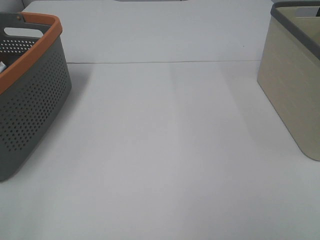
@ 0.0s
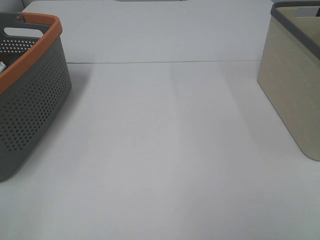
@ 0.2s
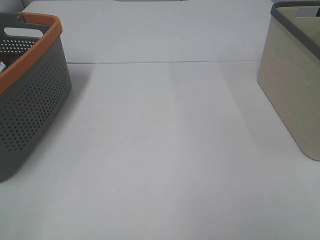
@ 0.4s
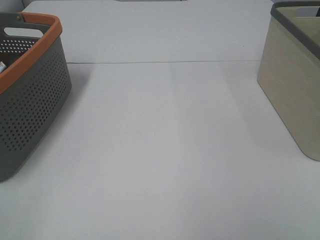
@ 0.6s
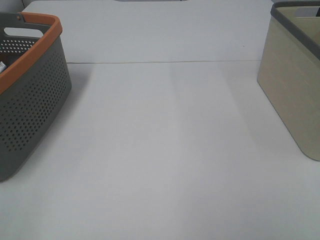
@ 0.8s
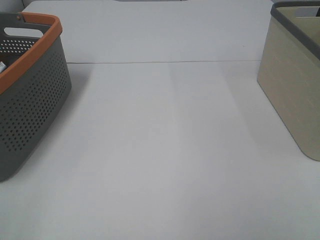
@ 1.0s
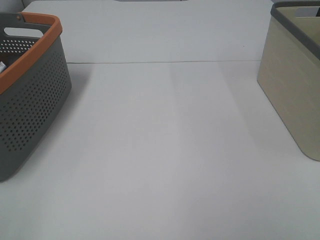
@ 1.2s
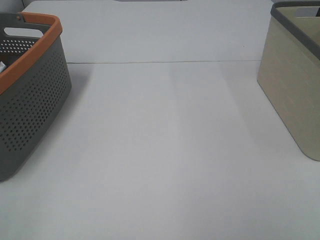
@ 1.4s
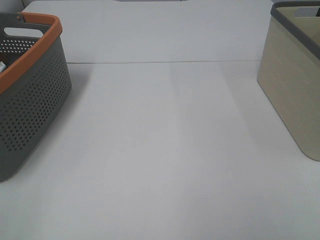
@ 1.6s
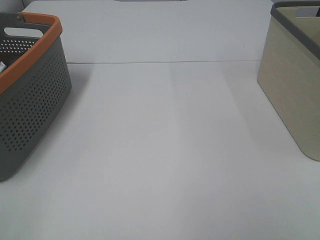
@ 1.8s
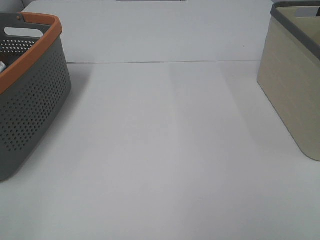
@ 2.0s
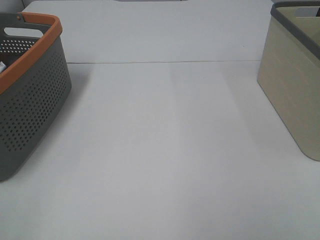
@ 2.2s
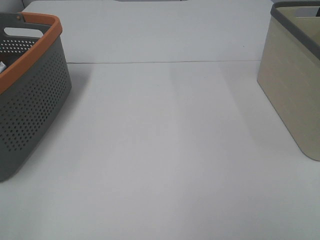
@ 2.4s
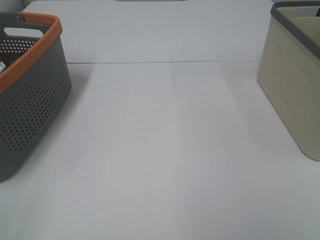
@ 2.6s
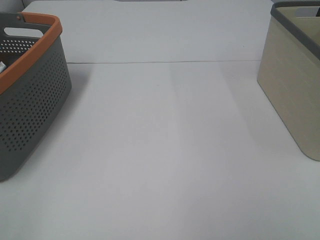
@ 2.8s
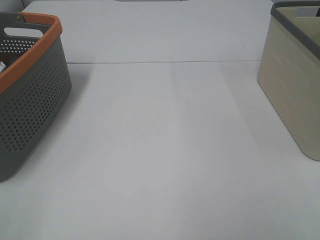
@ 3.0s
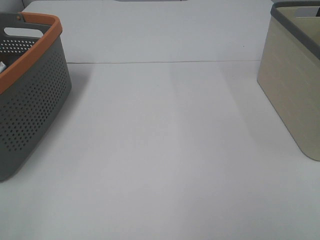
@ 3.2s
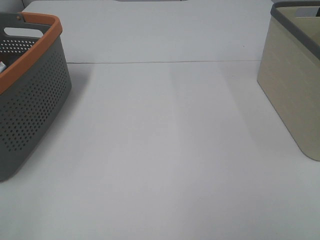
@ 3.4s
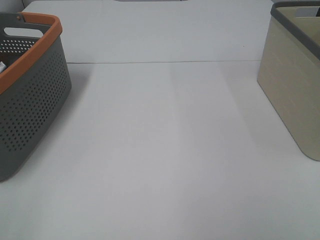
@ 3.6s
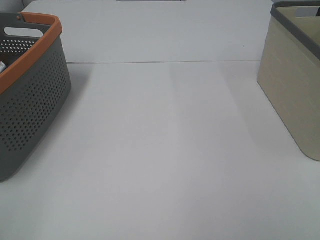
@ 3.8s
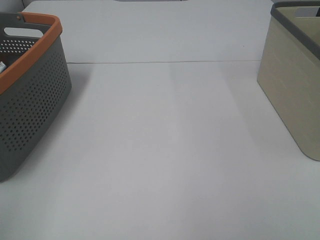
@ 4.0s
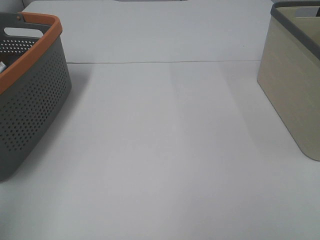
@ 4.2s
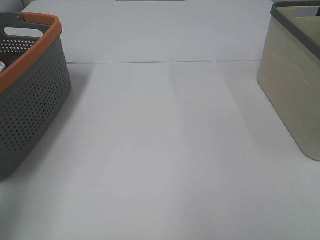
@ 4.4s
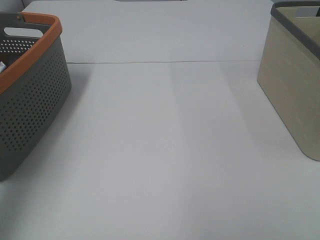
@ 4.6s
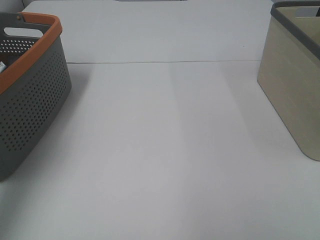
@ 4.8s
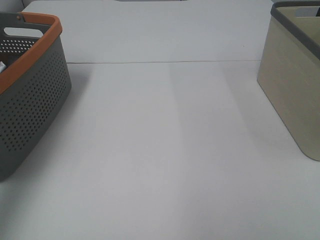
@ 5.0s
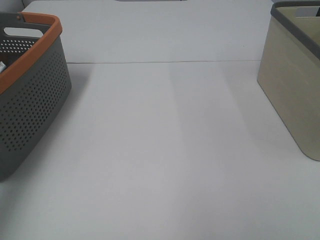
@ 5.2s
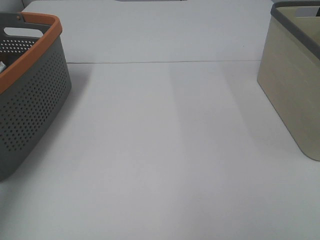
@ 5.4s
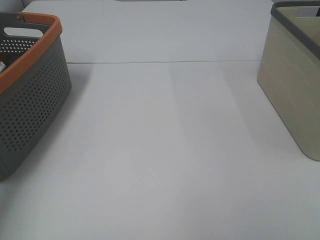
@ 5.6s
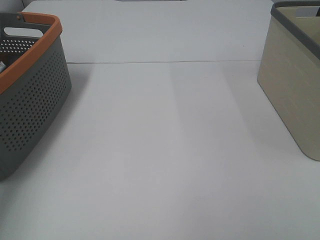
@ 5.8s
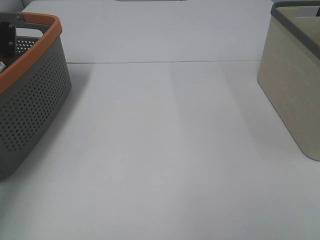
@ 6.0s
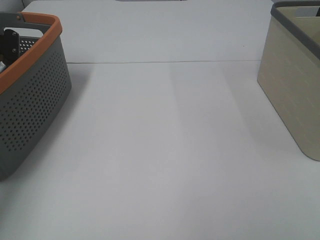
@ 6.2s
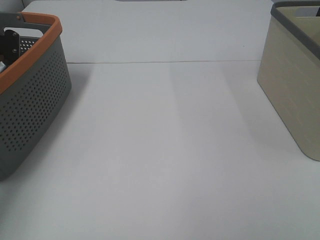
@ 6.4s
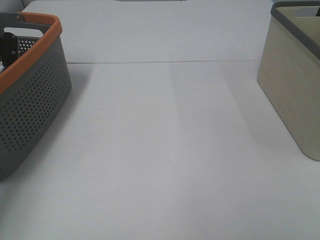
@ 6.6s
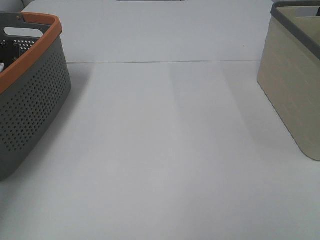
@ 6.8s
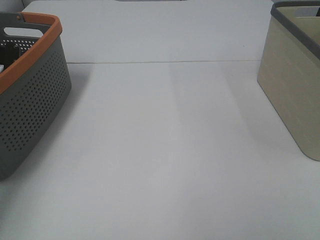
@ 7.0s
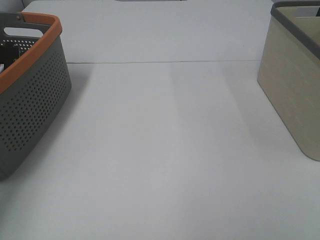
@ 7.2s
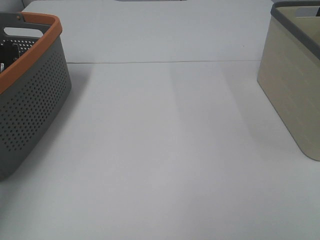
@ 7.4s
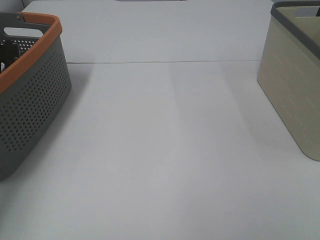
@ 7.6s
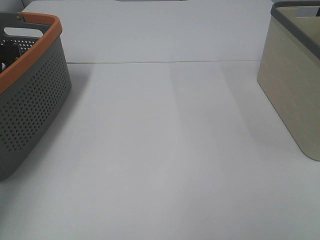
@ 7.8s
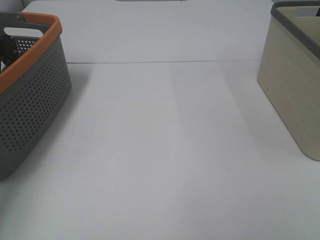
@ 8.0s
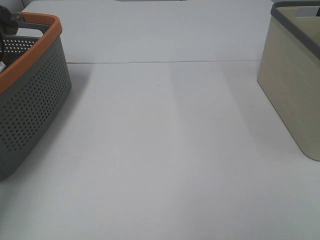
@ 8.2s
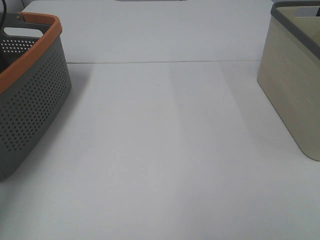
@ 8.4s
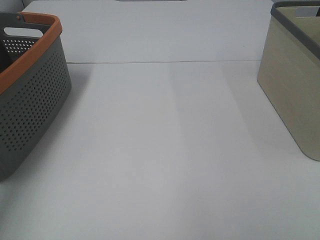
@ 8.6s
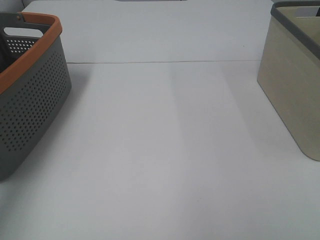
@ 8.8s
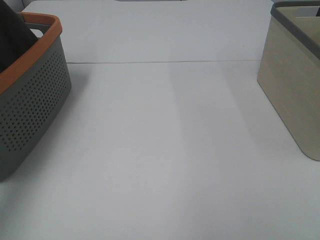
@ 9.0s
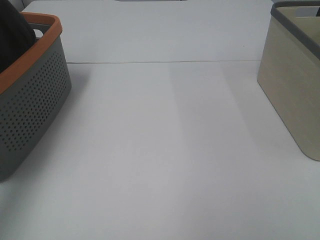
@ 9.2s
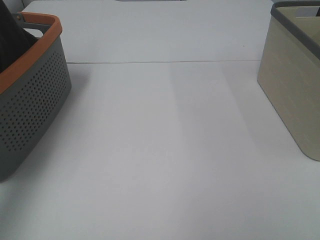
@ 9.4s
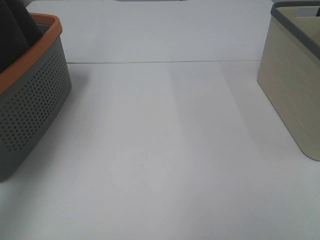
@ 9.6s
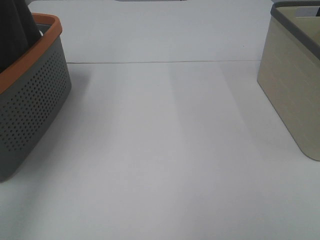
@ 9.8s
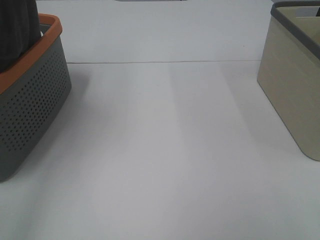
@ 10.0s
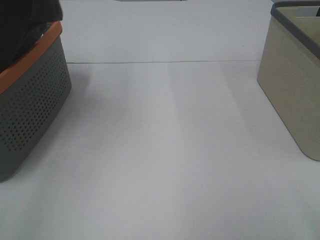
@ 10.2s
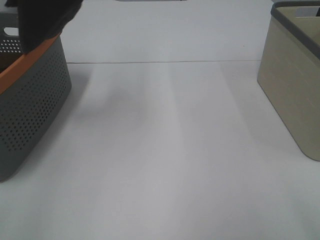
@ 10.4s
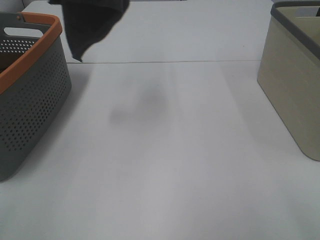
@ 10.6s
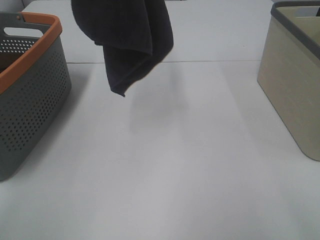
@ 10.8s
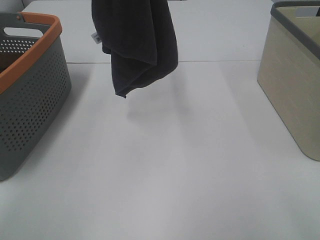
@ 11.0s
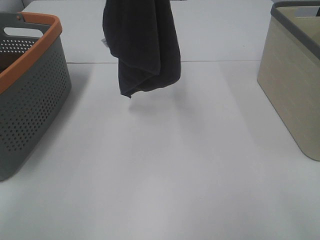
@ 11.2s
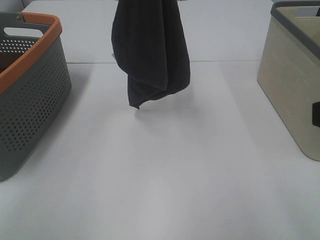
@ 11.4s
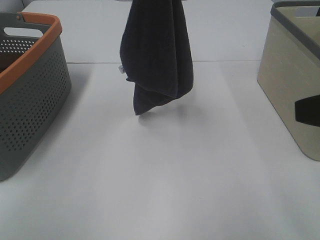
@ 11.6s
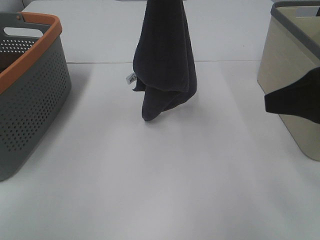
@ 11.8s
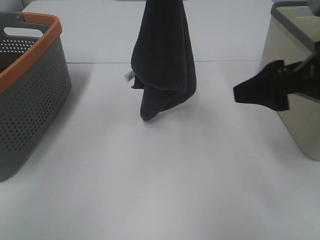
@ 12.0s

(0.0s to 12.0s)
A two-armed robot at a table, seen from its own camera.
Task of the whole recording: Remove the towel and place it.
0.0s - 3.0s: Neither gripper changes place.
3.0s - 4.4s: The left gripper goes about 20 cm forward and upward.
4.4s - 6.0s: The left gripper travels forward and downward by some 35 cm.
7.6s - 9.0s: The left gripper travels upward by some 25 cm.
9.0s - 10.4s: The right gripper shifts some 5 cm forward; the left gripper heads upward, to the right and backward, covering some 25 cm.
10.4s - 12.0s: The right gripper is displaced forward by about 15 cm, while the left gripper shifts some 20 cm to the right, downward and forward.

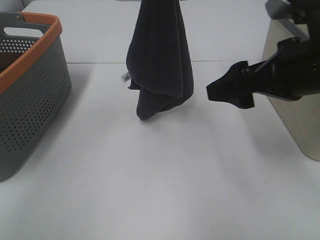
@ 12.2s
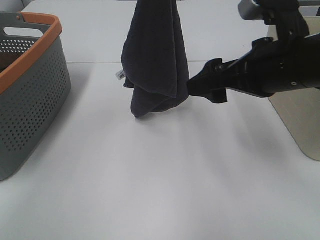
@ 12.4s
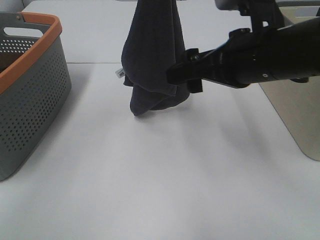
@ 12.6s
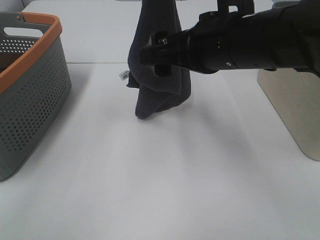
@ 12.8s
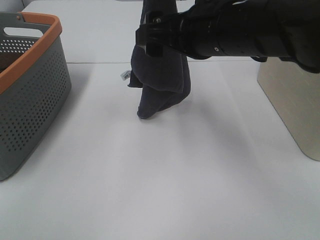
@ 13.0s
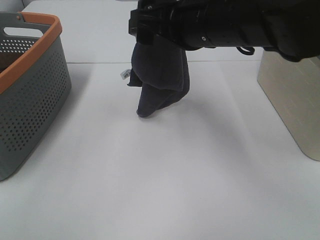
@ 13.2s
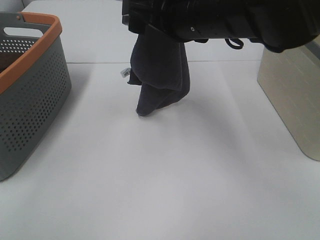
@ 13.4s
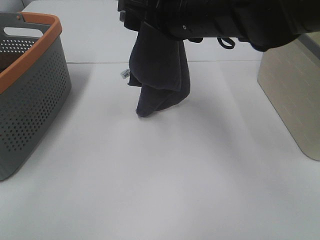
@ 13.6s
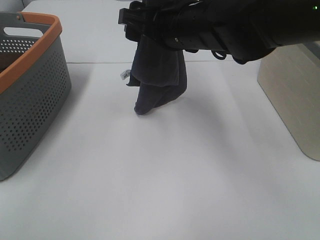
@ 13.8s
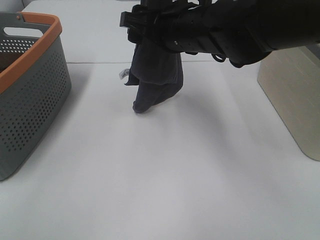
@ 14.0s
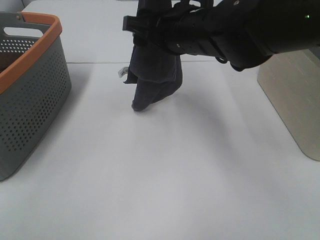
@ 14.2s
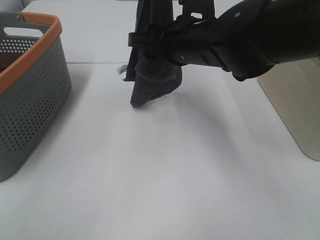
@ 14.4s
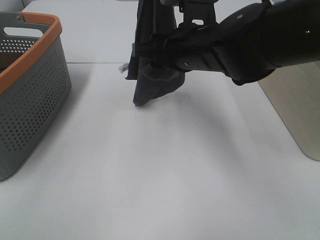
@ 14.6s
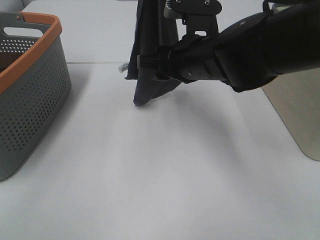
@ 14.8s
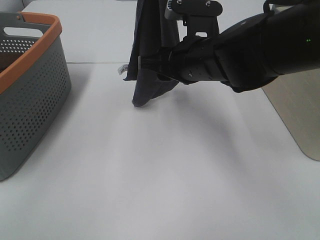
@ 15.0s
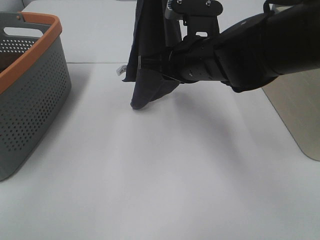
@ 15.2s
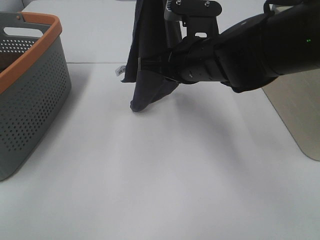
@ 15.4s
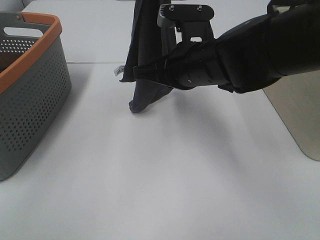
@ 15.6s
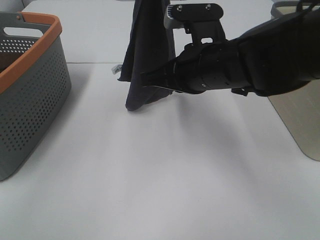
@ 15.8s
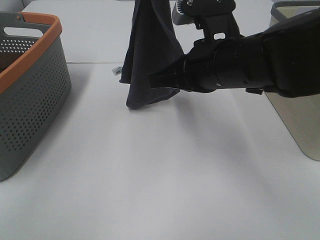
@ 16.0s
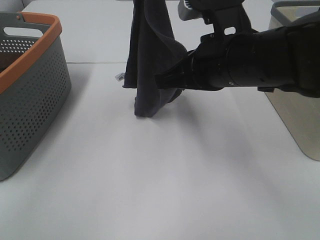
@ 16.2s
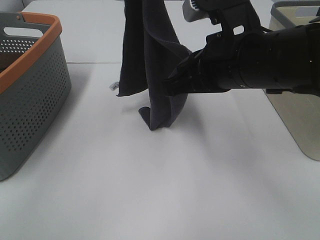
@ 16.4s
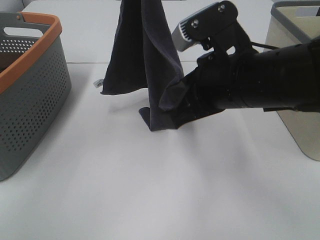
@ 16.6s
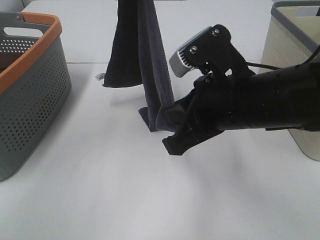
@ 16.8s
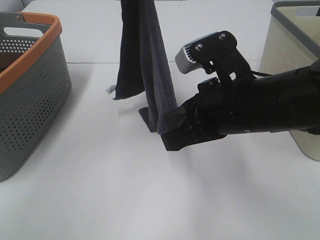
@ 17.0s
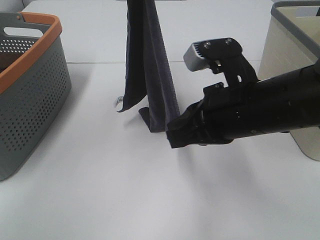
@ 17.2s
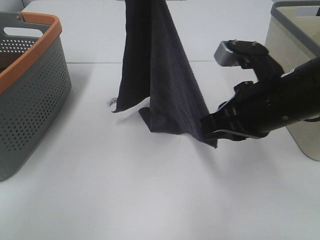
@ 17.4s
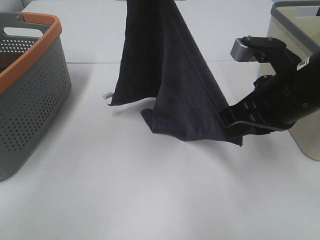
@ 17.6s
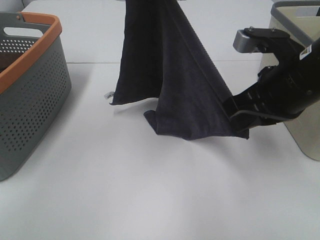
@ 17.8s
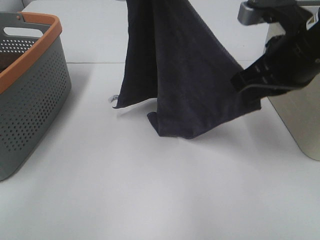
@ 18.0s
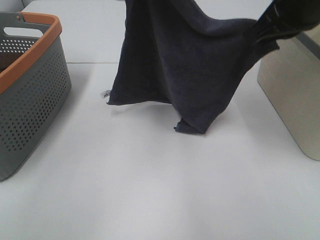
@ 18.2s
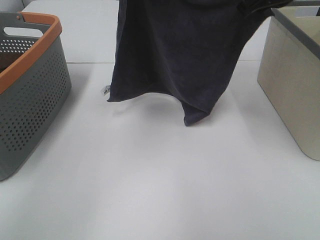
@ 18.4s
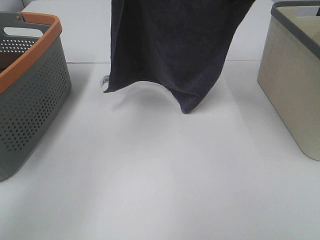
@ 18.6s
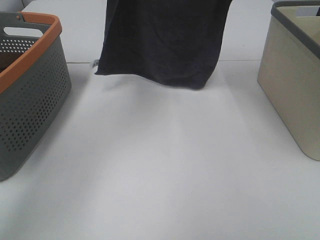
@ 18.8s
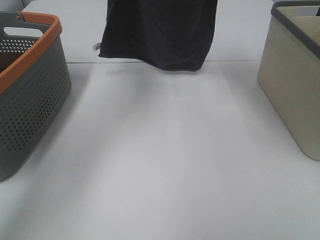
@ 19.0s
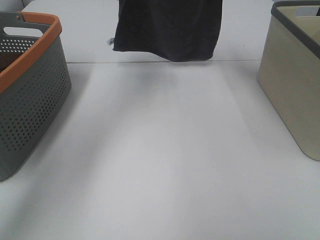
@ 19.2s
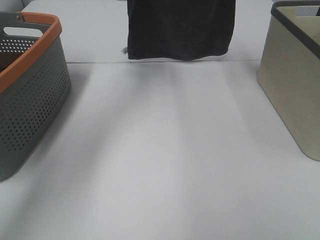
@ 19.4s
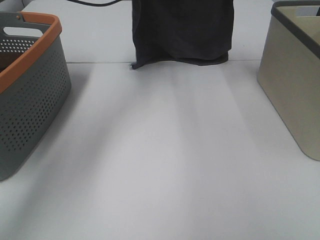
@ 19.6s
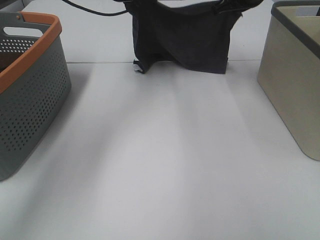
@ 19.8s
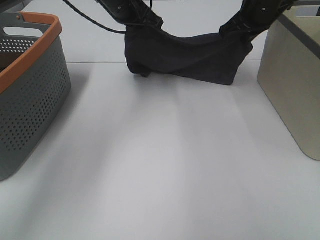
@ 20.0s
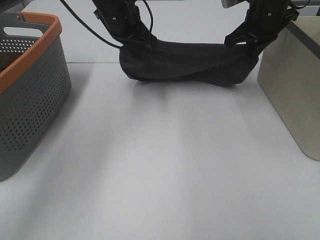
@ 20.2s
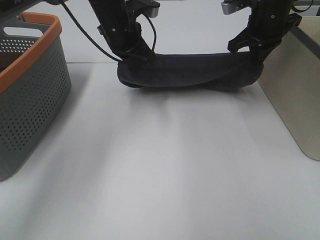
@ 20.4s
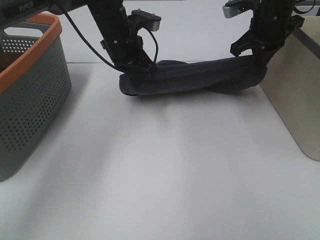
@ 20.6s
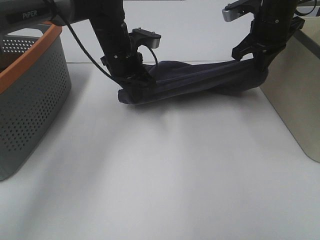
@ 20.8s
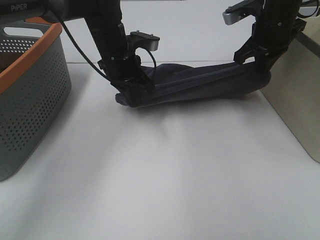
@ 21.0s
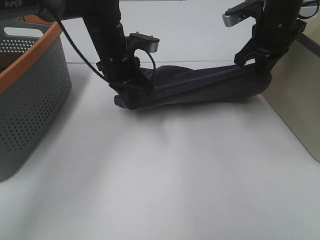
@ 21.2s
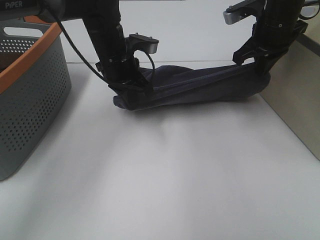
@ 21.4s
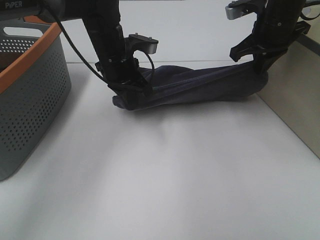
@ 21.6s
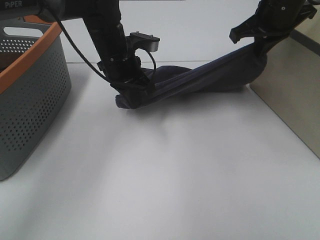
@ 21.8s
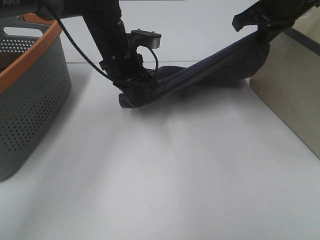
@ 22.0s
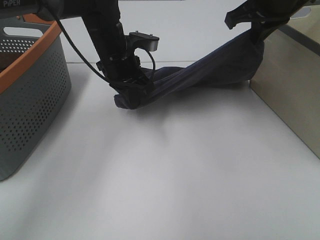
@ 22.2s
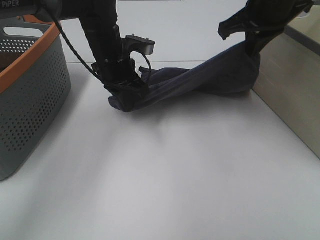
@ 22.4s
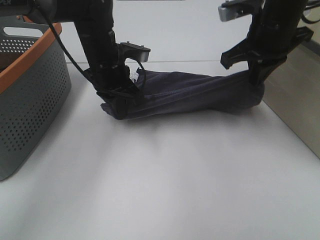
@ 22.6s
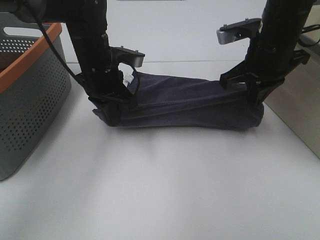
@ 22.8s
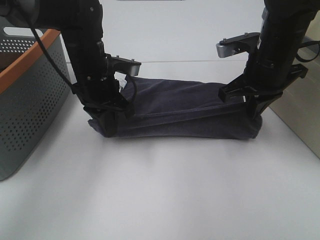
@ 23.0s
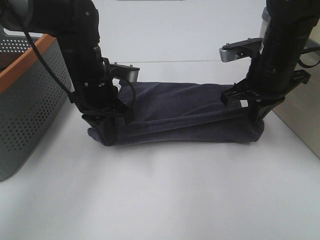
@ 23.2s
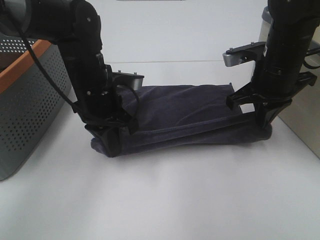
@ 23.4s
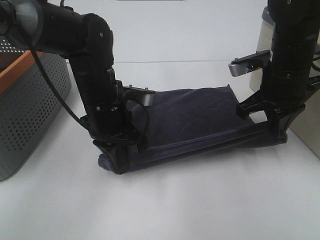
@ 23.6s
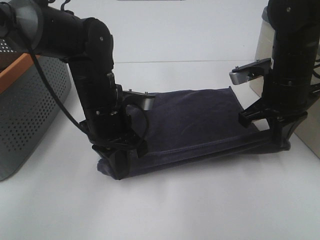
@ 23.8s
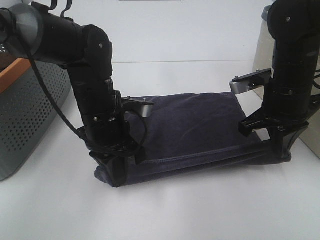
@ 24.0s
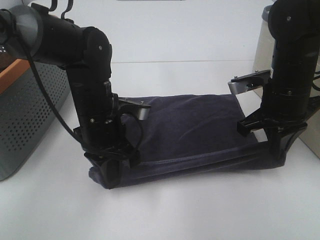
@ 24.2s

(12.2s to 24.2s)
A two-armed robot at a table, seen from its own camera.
Task of the whole recording: Remove the towel and place it.
Step, 12.2s - 15.4s: Right hand: grab a corner of the grey towel and straighten it.
Step, 15.6s - 19.4s: Right hand: spread the grey towel flat on the table.
Step, 15.6s - 20.0s: Left hand: spread the grey towel flat on the table.
12.2s - 13.8s: The right gripper shifts approximately 15 cm to the left and forward.
13.8s - 15.2s: The right gripper moves approximately 5 cm, and closes.
15.2s - 16.6s: The right gripper shifts roughly 10 cm backward.
16.6s - 18.2s: The right gripper travels upward, forward and to the right by approximately 15 cm.
18.2s - 19.8s: The right gripper heads forward, covering about 20 cm. Meanwhile the left gripper goes some 20 cm forward and downward.
19.8s - 21.2s: The right gripper shifts roughly 5 cm backward, while the left gripper shifts about 15 cm downward and backward.
21.2s - 22.6s: The right gripper heads backward, covering some 5 cm.
22.6s - 24.2s: The right gripper heads downward and backward, covering about 10 cm; the left gripper heads backward, covering approximately 10 cm.
